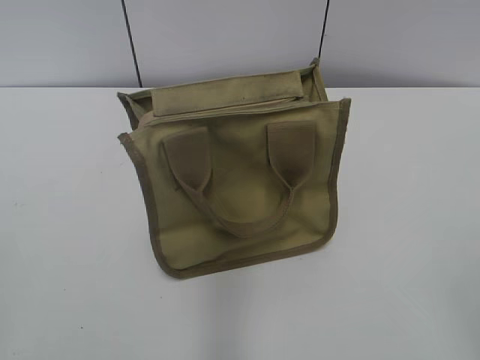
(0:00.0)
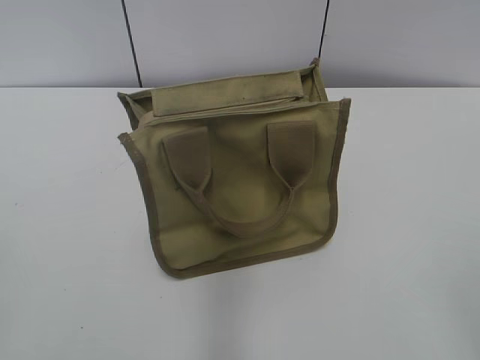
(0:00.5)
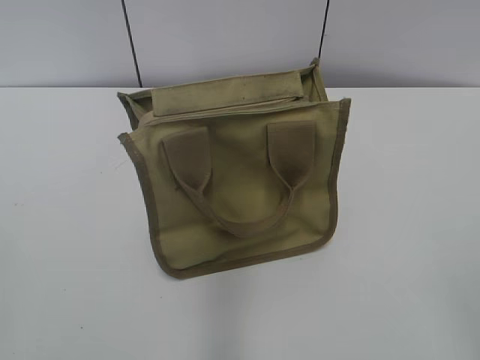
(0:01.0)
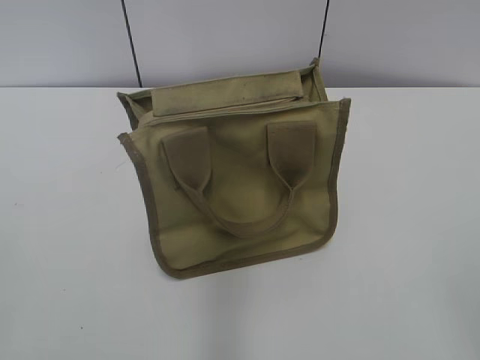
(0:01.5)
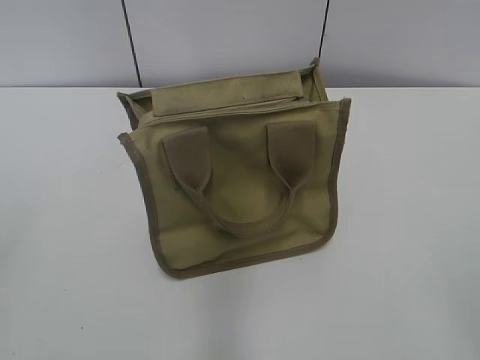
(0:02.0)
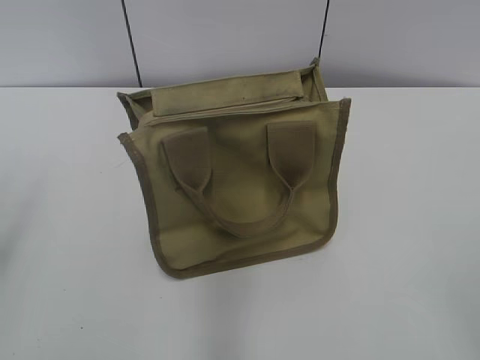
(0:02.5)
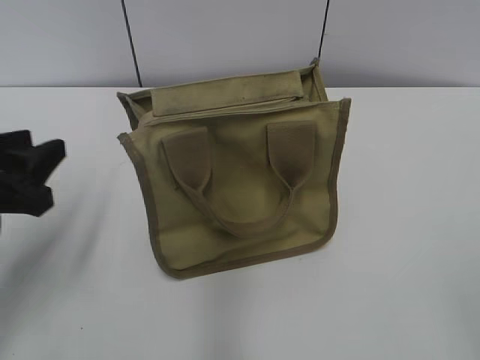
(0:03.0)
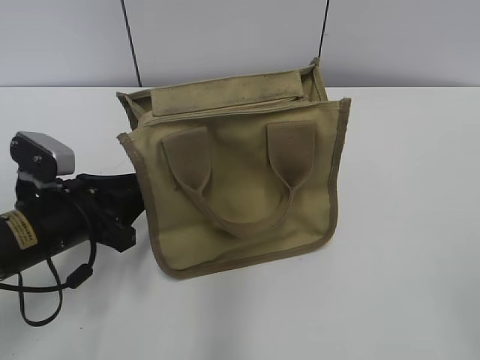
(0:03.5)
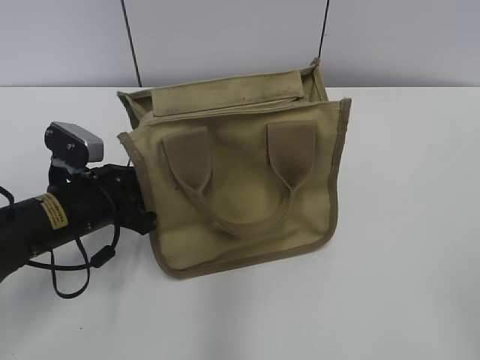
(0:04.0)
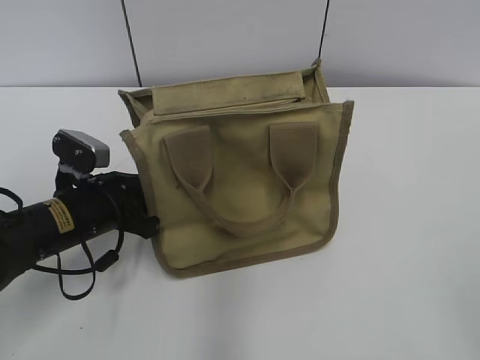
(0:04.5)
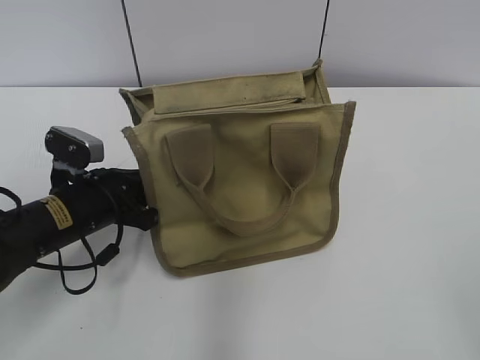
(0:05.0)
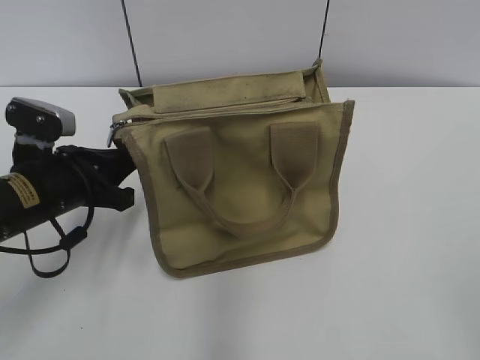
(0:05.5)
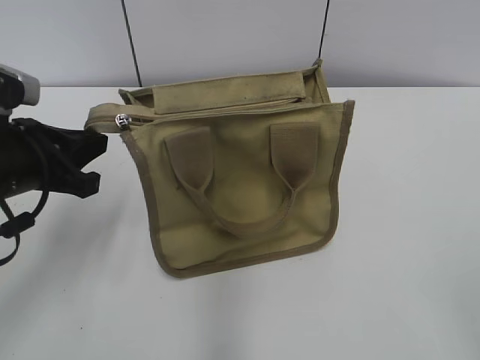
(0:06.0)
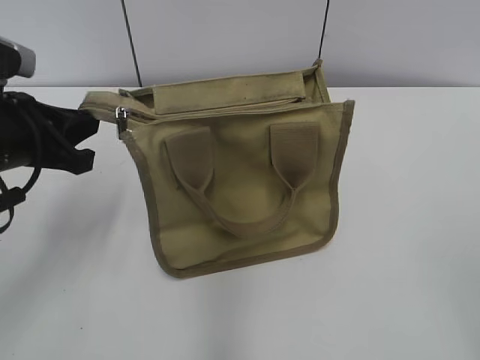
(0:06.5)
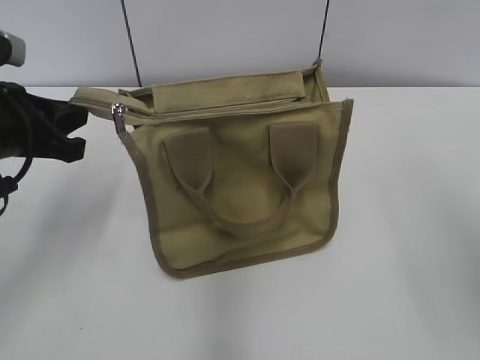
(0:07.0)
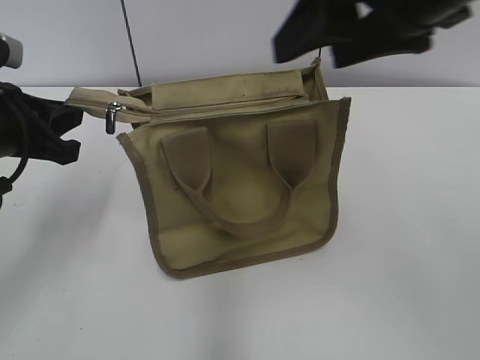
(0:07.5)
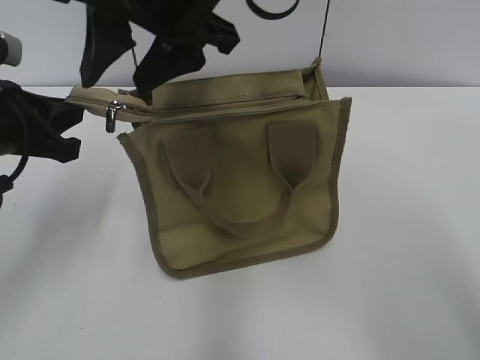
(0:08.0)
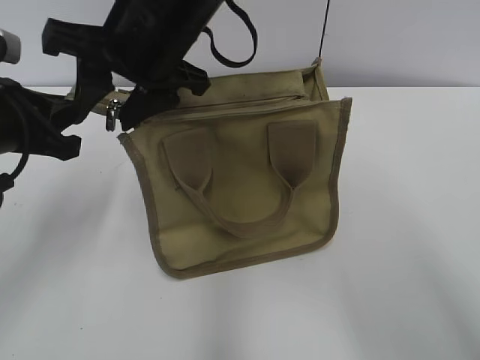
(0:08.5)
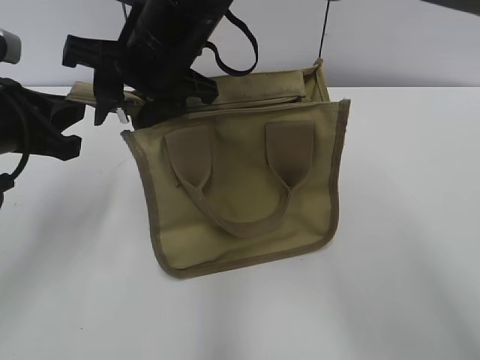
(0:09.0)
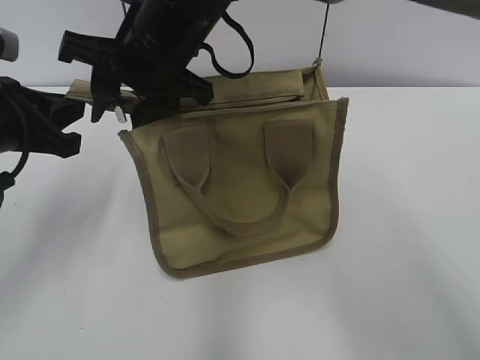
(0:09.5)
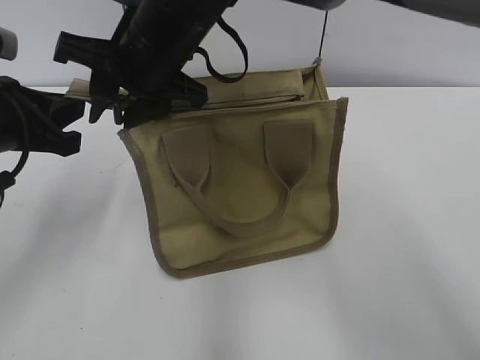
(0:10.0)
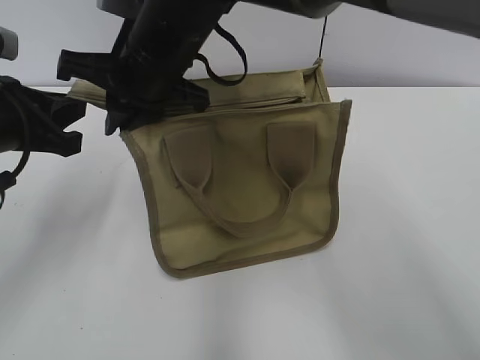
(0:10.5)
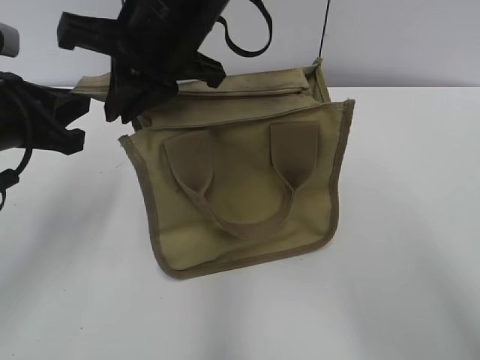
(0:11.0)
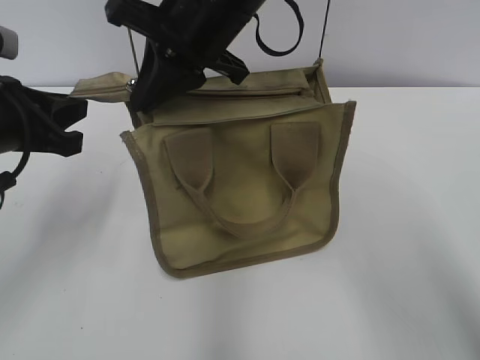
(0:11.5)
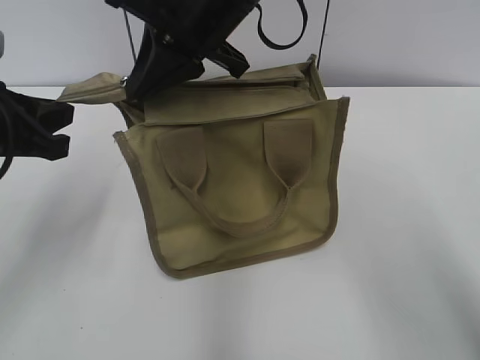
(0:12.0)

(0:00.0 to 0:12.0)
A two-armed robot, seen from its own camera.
0:02.0 - 0:04.0: The left gripper moves forward, downward and to the right, about 35 cm, and closes up.
0:04.0 - 0:06.0: The left gripper moves upward, some 10 cm, and closes up.
0:06.0 - 0:08.0: The right gripper moves to the left and forward, some 40 cm.
0:08.0 - 0:10.0: The right gripper heads downward, covering roughly 10 cm.
0:10.0 - 0:12.0: The right gripper heads to the right, covering roughly 5 cm, and closes up.

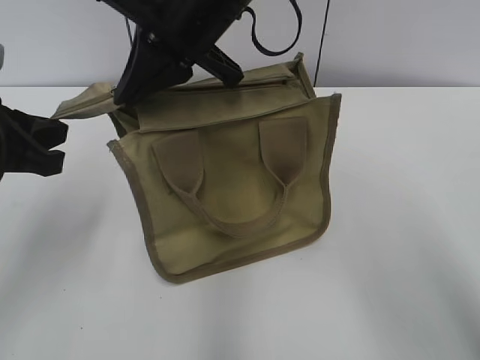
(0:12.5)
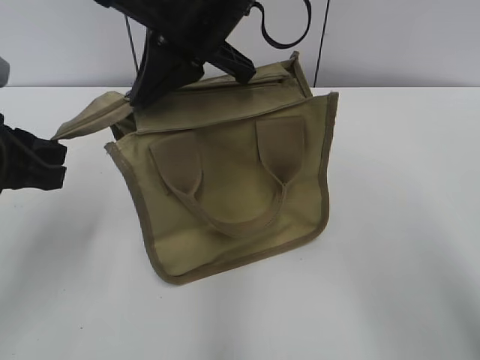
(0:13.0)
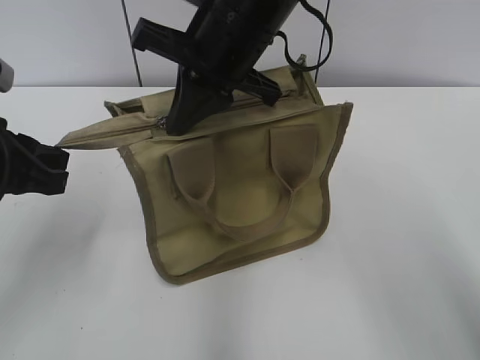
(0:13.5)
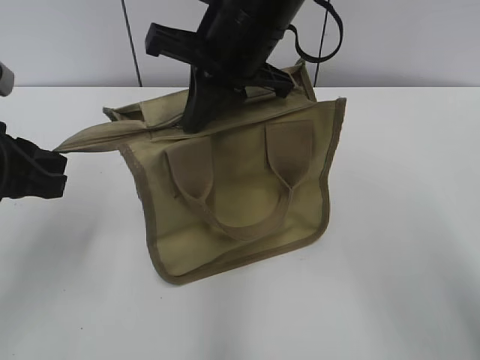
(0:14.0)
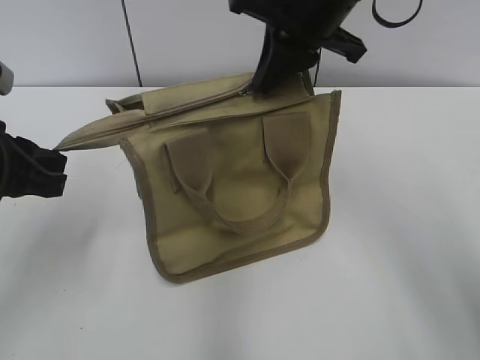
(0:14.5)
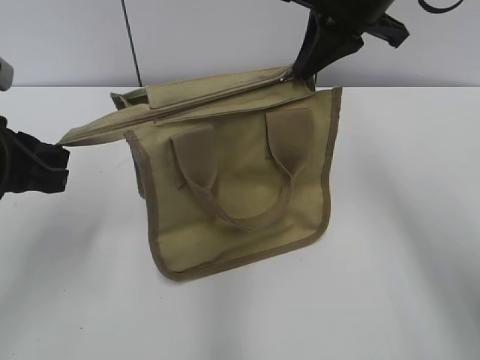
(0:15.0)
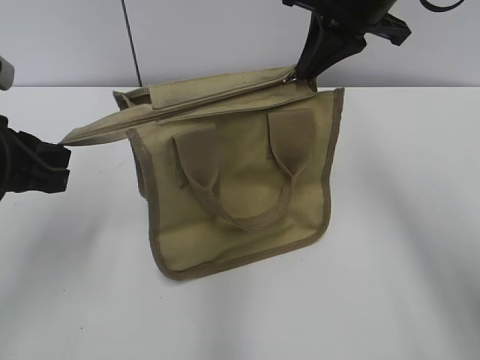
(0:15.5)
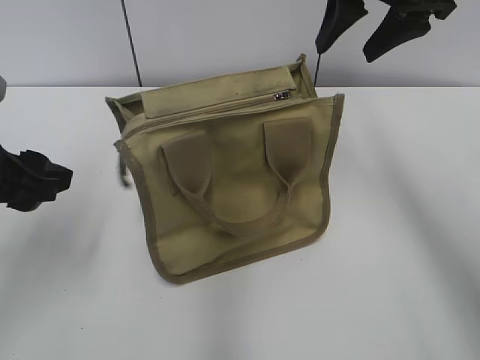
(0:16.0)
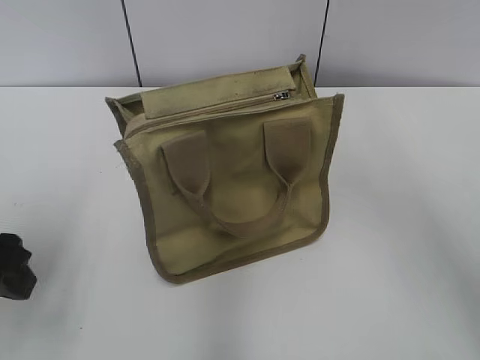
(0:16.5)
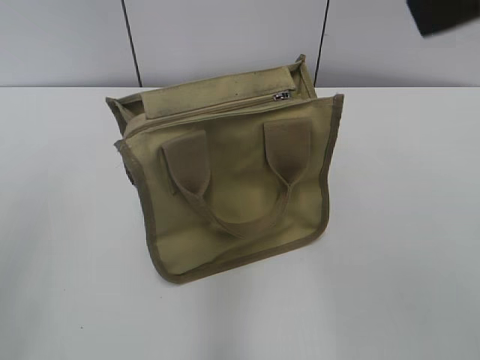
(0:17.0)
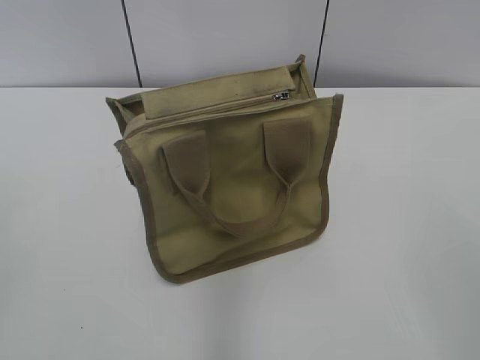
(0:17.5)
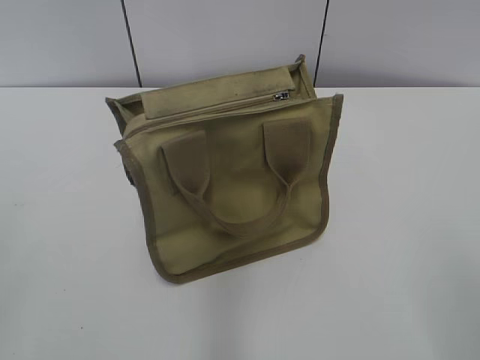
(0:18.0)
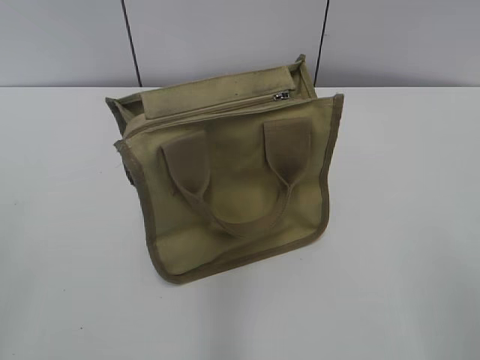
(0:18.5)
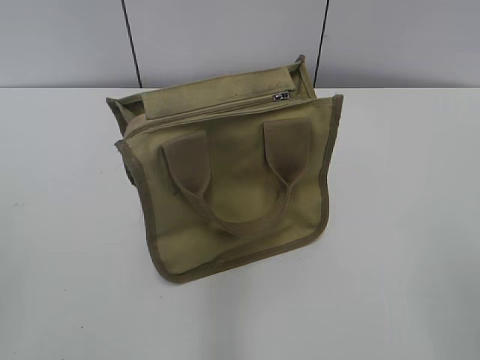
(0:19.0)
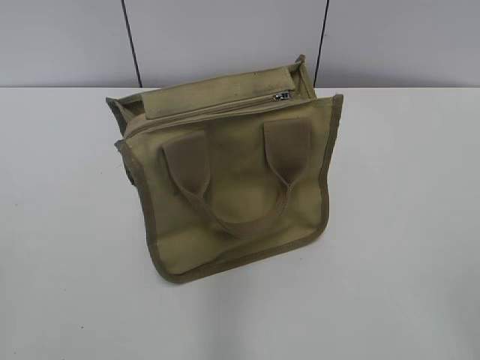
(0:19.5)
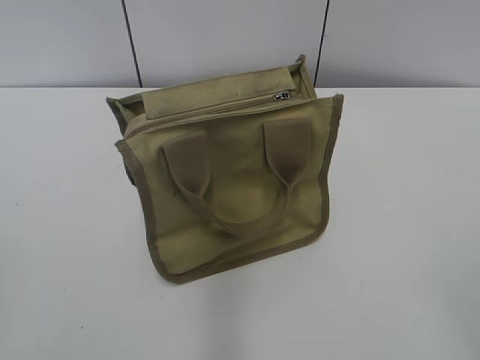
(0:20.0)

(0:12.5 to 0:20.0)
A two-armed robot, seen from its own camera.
Step, 0:12.5 - 0:15.5: Zip up the bag with your right hand.
0:12.5 - 0:14.5: The right gripper is displaced to the right by about 10 cm.
0:14.5 - 0:16.5: The right gripper heads upward, backward and to the right, covering approximately 15 cm, and opens its fingers; the left gripper opens its fingers.
0:16.5 - 0:18.0: The left gripper shifts some 20 cm backward and upward.

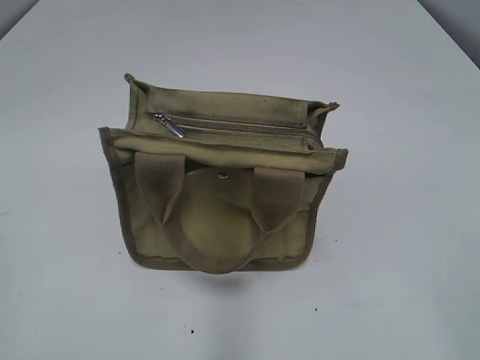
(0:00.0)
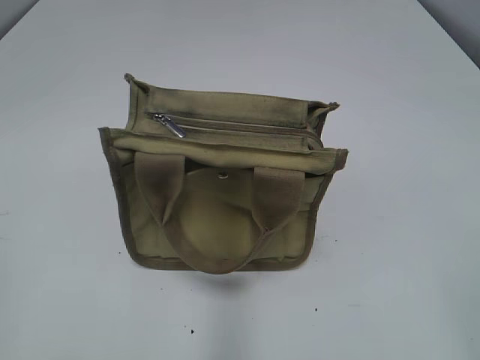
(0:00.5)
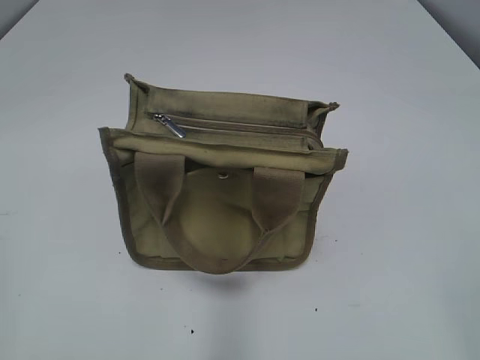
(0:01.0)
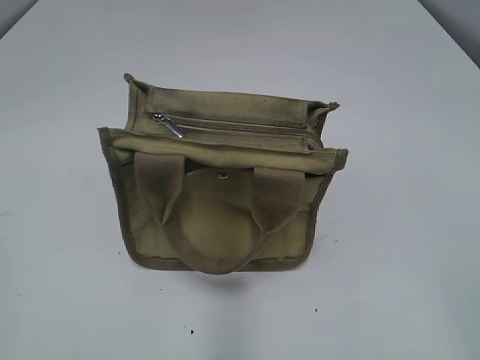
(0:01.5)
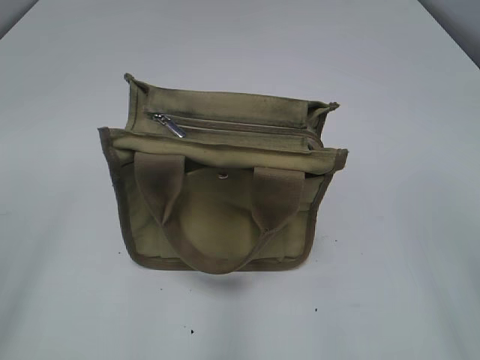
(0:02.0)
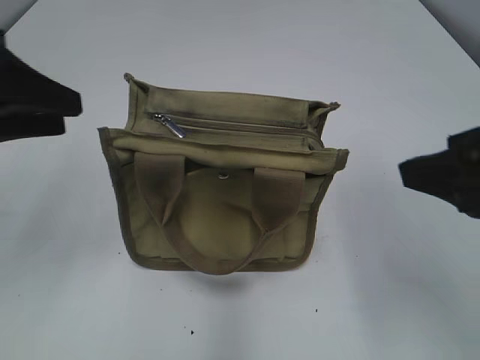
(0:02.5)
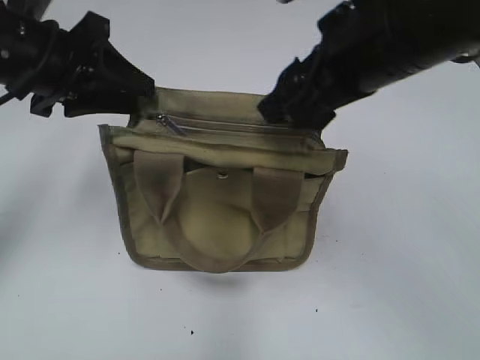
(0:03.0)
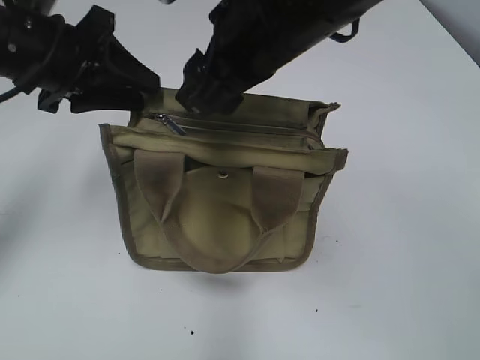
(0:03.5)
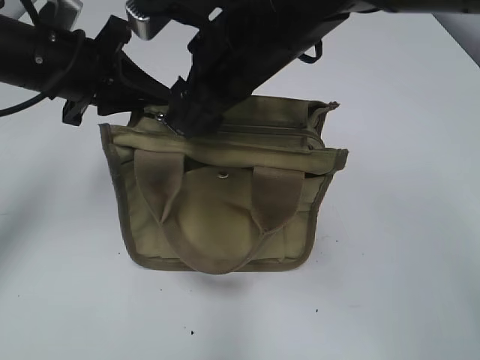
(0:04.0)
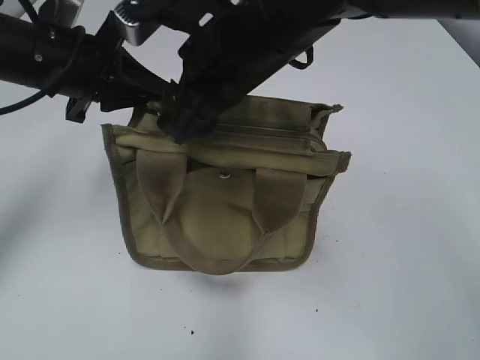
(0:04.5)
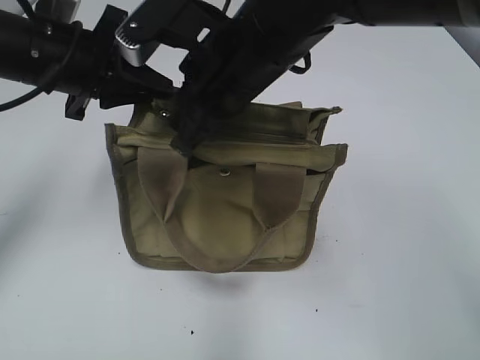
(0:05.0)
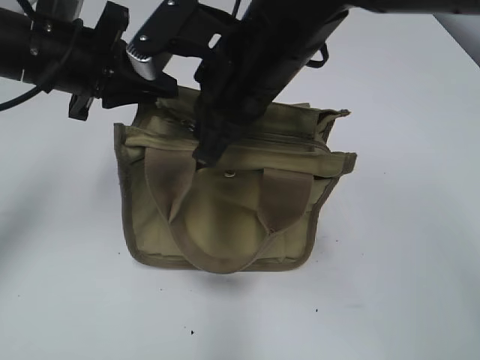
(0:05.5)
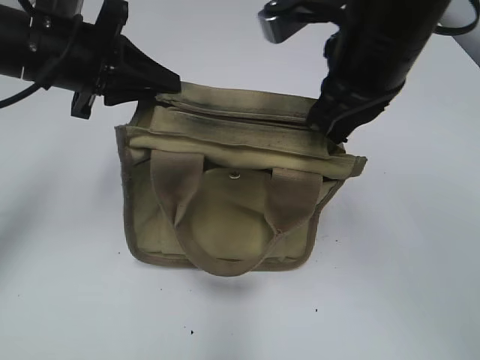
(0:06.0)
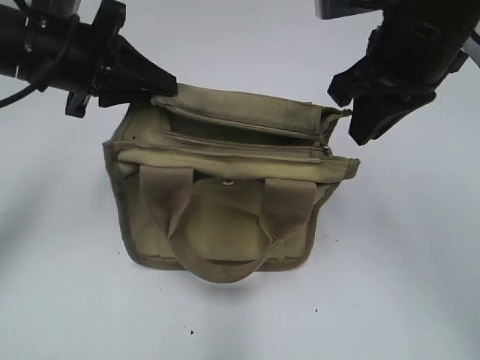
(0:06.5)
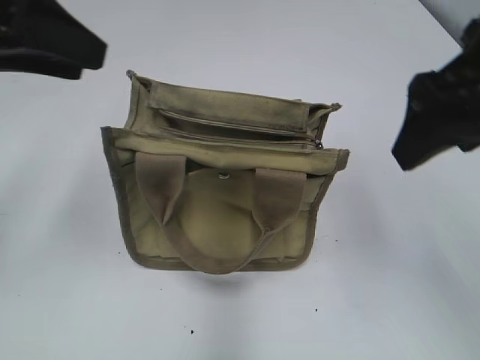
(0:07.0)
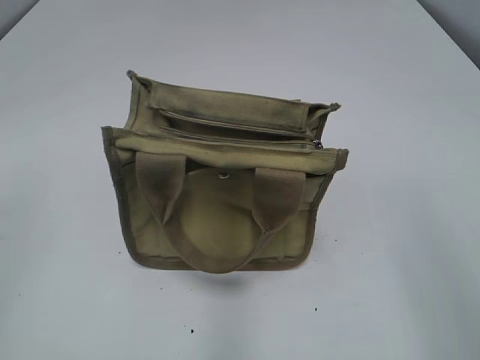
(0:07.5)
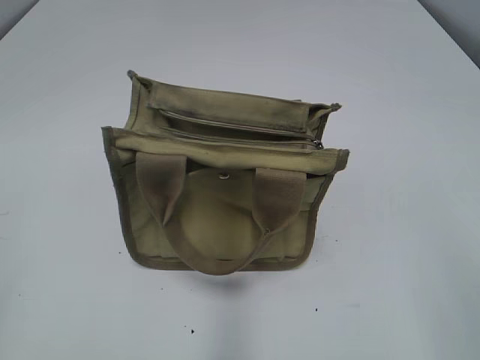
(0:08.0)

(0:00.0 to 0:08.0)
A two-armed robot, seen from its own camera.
Step, 0:00.0 - 0:06.0: Pull open the zipper with your right hand.
0:02.0 - 0:04.0: The right gripper travels forward and to the left by approximately 40 cm. The left gripper moves forward and to the right, approximately 35 cm.
0:04.0 - 0:06.0: The left gripper closes up. Meanwhile the right gripper moves to the right, roughly 5 cm, and closes up.
0:06.0 - 0:08.0: The right gripper shifts some 30 cm backward and to the right, and opens up. Meanwhile the left gripper goes some 35 cm backward and to the left, and opens.
